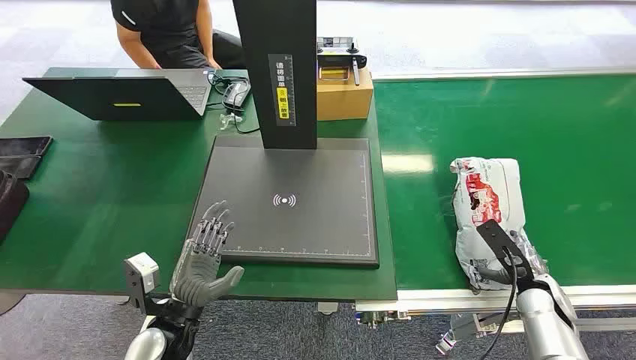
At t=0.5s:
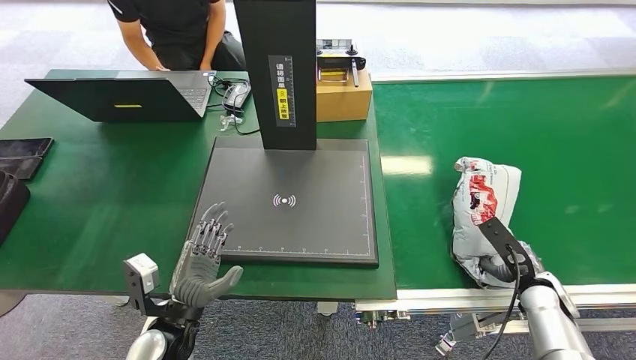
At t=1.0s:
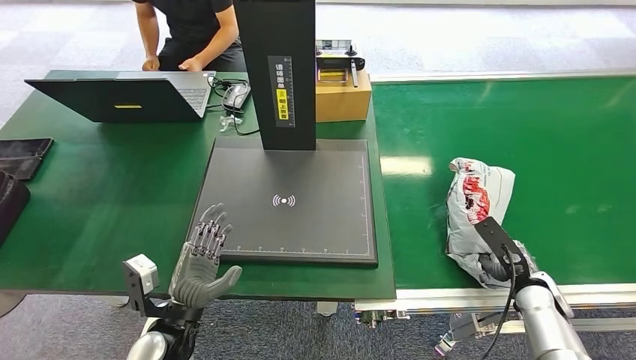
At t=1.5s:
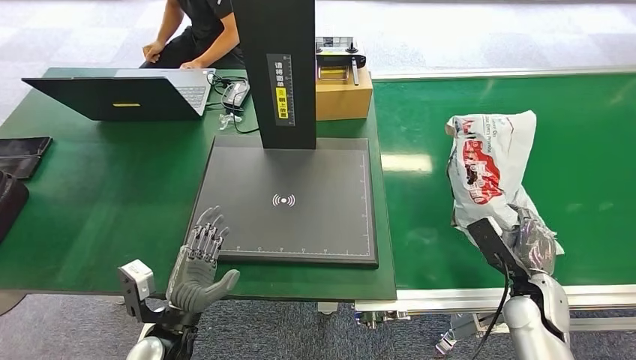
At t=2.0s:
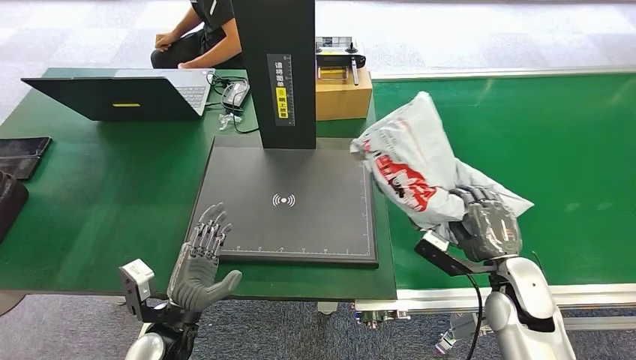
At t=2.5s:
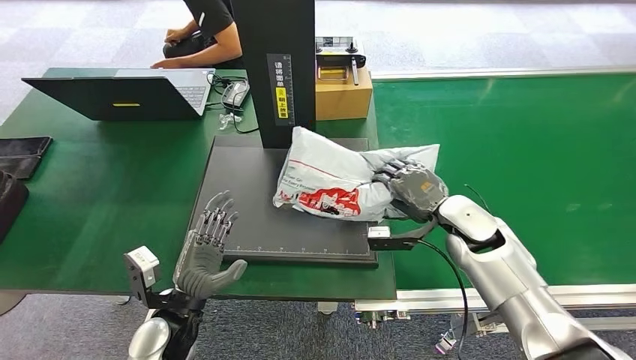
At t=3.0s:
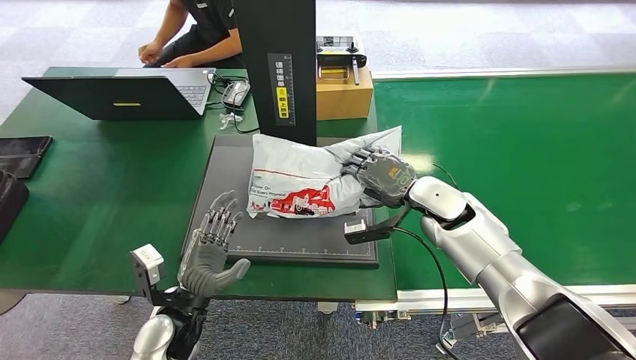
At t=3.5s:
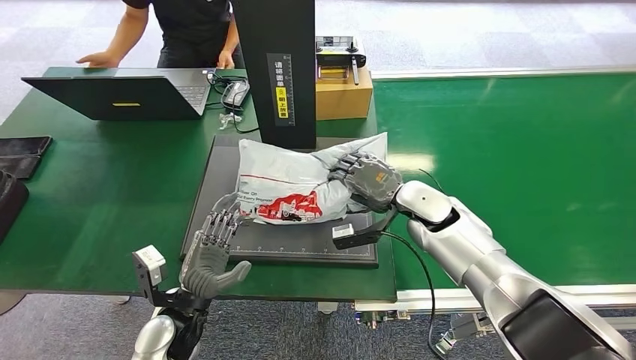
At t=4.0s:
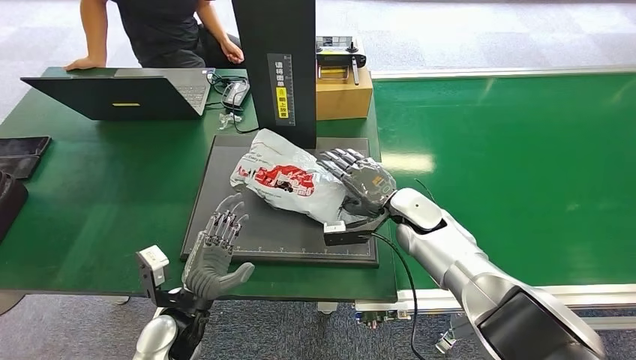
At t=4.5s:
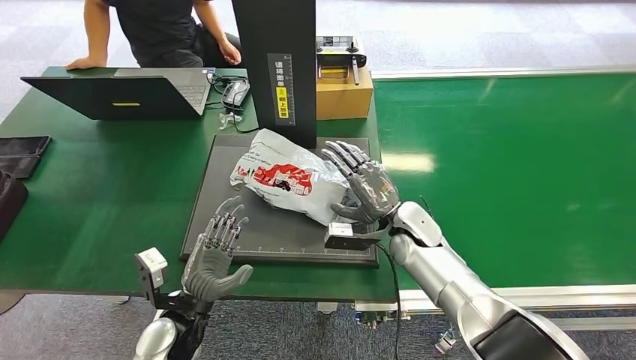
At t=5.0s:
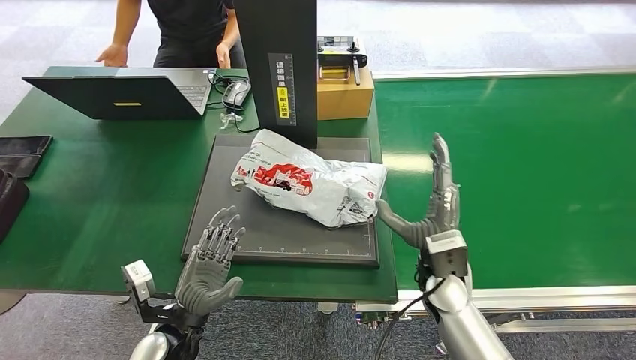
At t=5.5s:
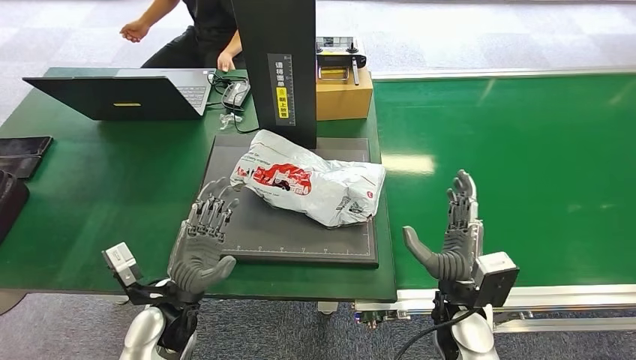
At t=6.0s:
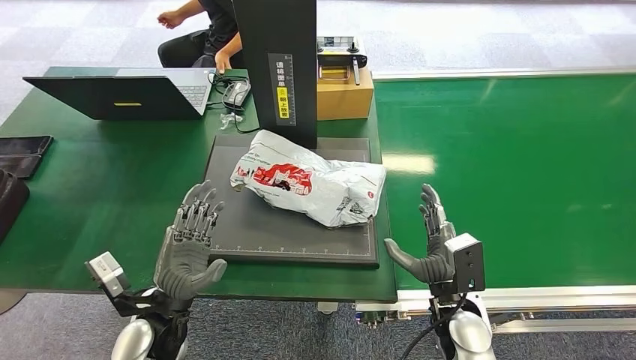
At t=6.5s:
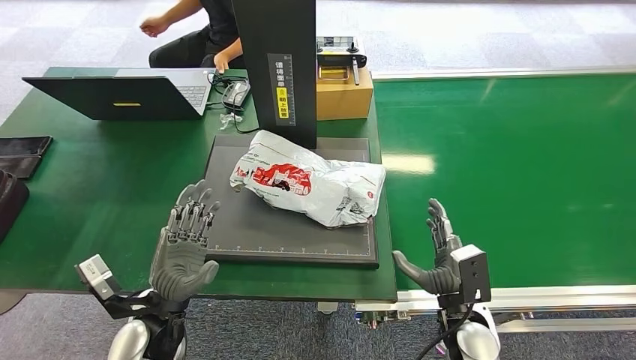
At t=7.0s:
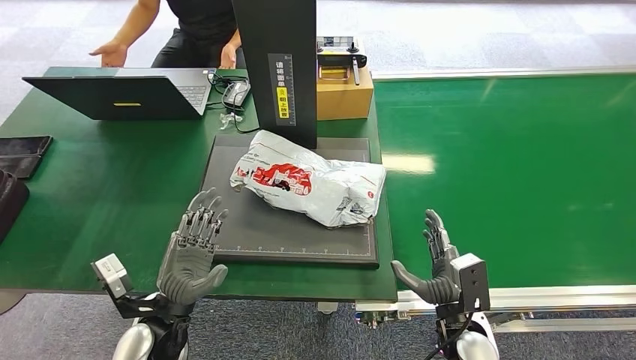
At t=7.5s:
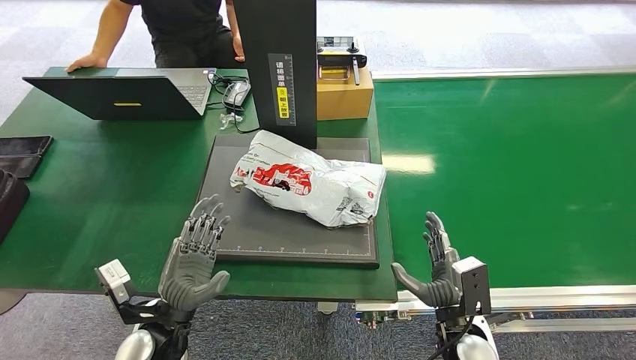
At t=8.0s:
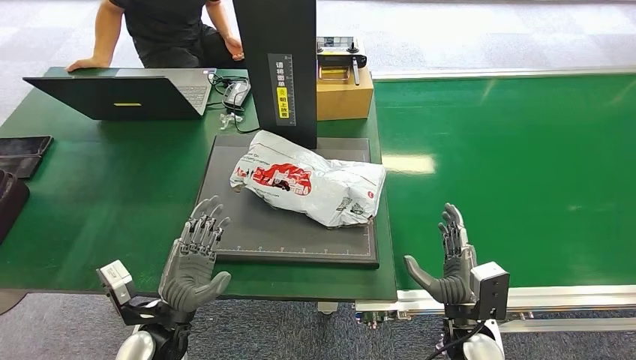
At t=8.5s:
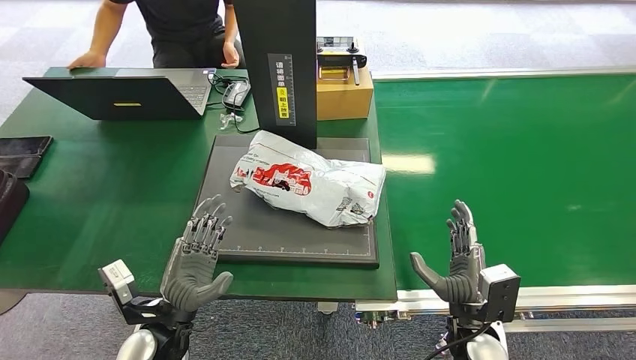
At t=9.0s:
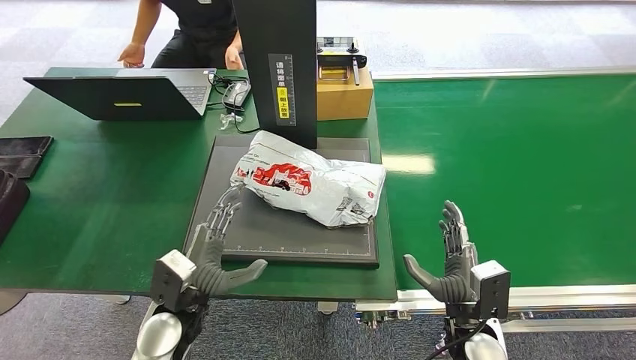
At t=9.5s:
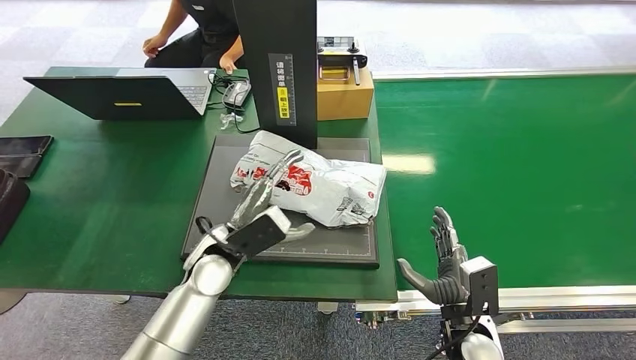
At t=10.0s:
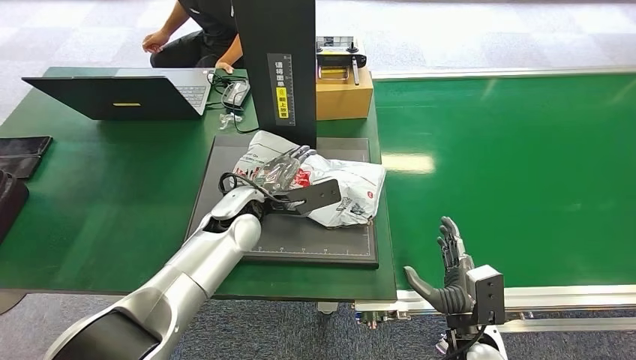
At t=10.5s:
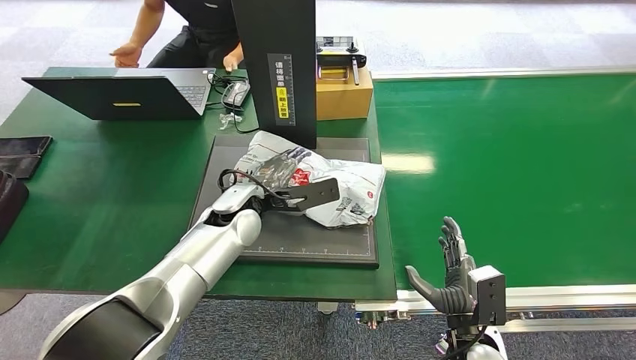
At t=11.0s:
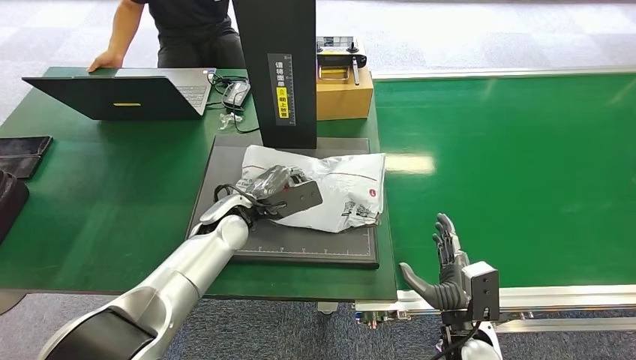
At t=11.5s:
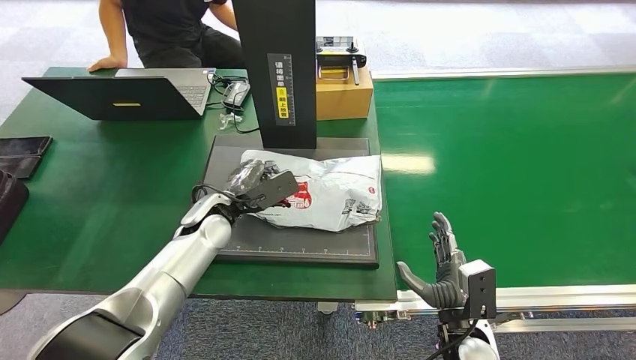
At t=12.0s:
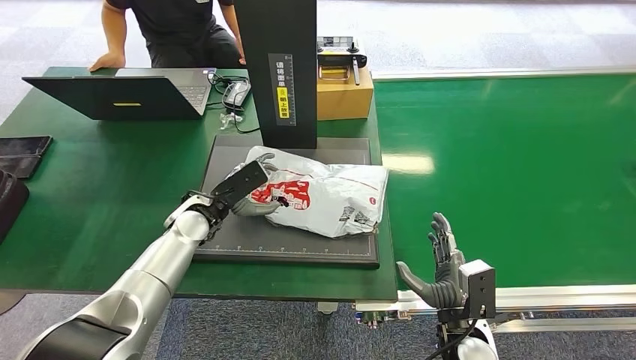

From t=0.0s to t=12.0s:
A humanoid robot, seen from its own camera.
Task of the whole recording: Weigh the package on the weighing device and place it in the left basket.
Step, from t=0.0s to t=1.5s: Pick up the package from the conveyor belt.
Step, from t=2.5s to t=5.0s: Place the package onto the inbound machine.
From t=6.0s to t=8.0s: There are only small adjustments of the hands.
From t=8.0s to t=10.0s: The left hand heads forward, to the right and upward, covering approximately 20 cm.
From t=10.0s to t=12.0s: The left hand heads to the left, covering roughly 10 cm.

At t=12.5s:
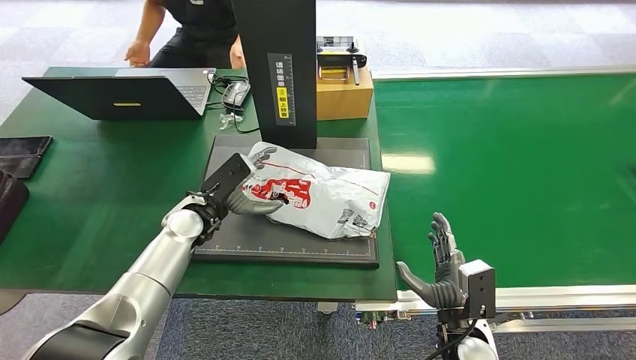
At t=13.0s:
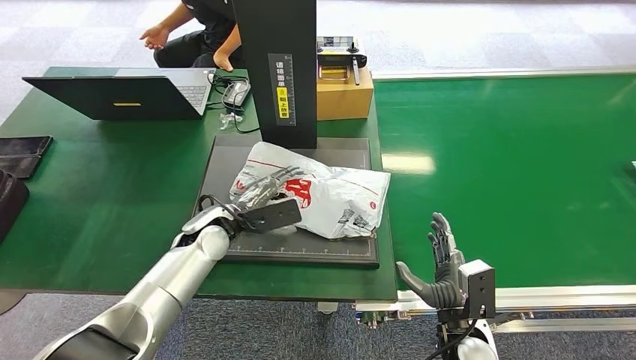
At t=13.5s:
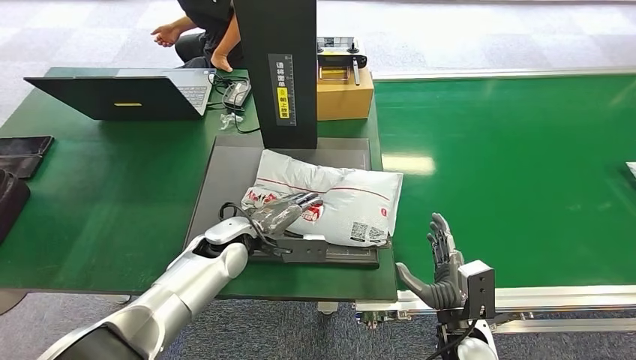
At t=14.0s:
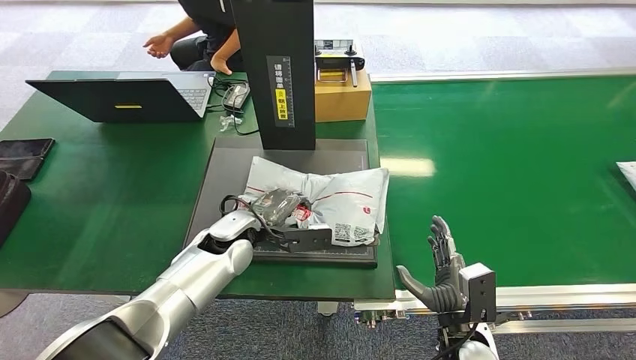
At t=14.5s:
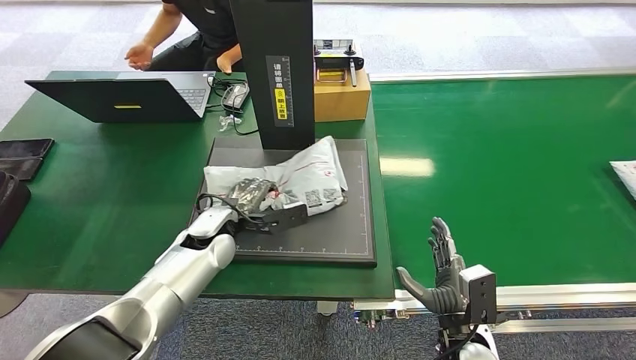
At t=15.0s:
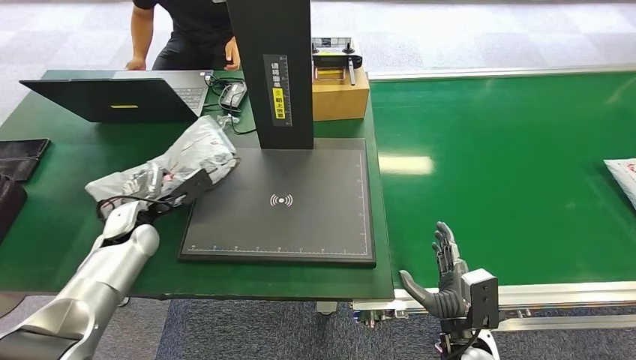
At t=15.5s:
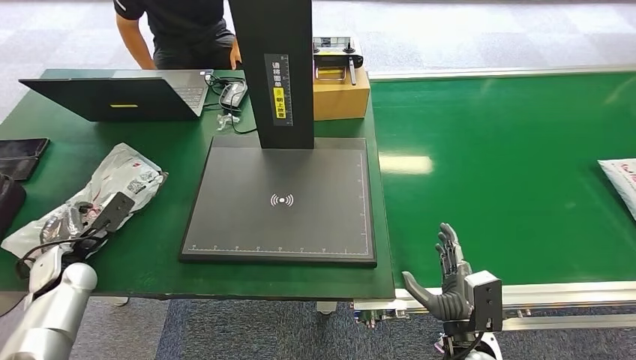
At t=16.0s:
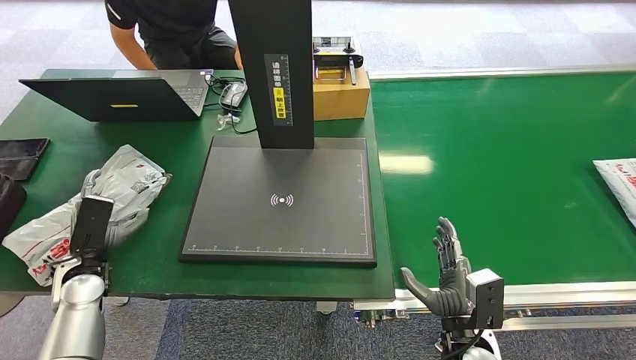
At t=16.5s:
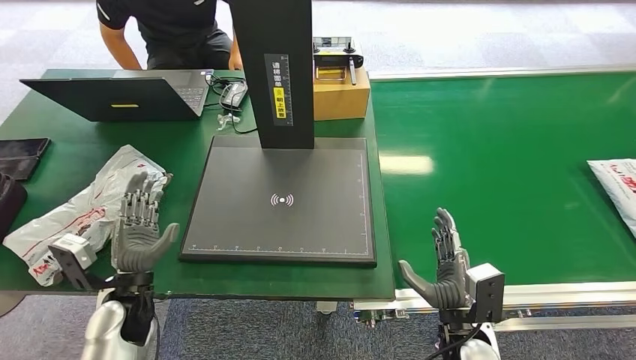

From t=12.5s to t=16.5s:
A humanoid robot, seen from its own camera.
Task of the whole recording: Weigh the package on the weighing device and place it in the left basket.
Step, from t=12.5s to t=14.5s: Pick up the package from the inbound machine.
Step, from t=15.0s to t=16.5s: Place the package into the parcel locker.
